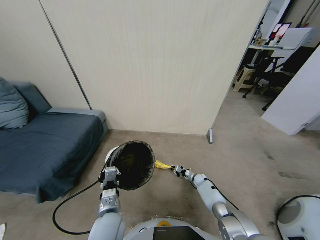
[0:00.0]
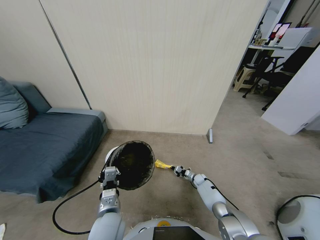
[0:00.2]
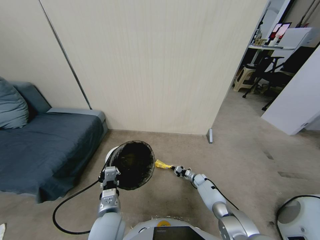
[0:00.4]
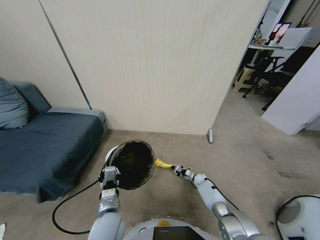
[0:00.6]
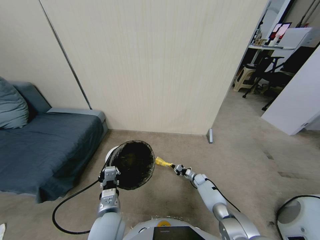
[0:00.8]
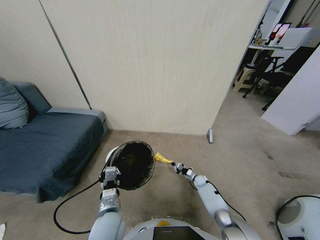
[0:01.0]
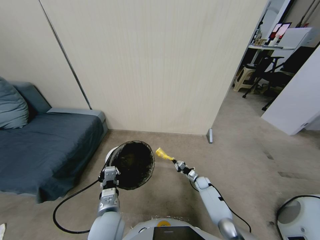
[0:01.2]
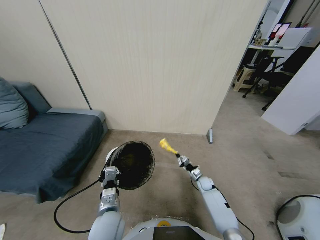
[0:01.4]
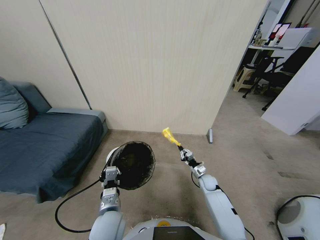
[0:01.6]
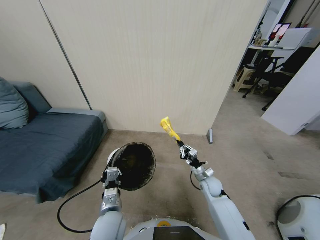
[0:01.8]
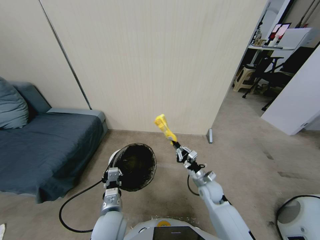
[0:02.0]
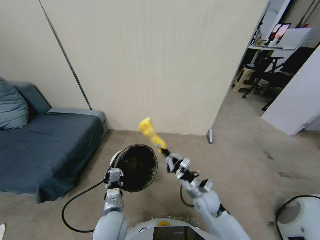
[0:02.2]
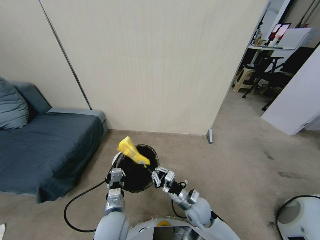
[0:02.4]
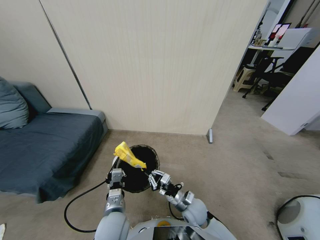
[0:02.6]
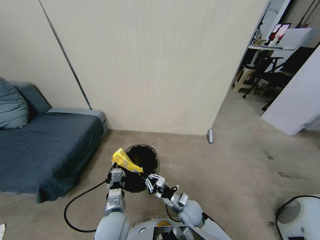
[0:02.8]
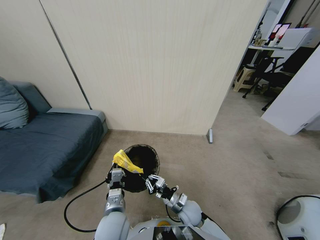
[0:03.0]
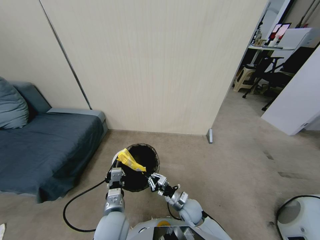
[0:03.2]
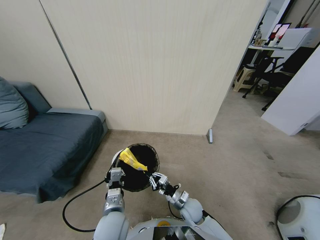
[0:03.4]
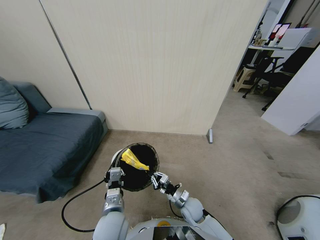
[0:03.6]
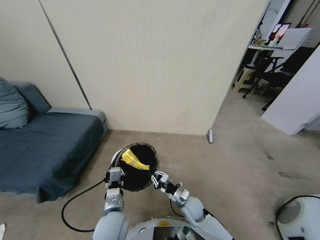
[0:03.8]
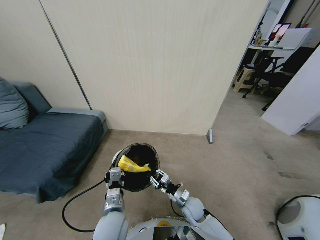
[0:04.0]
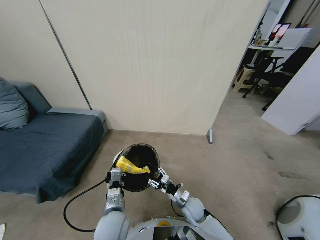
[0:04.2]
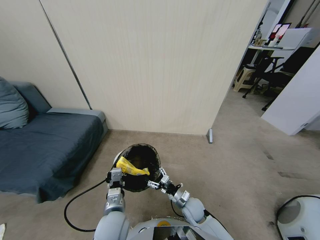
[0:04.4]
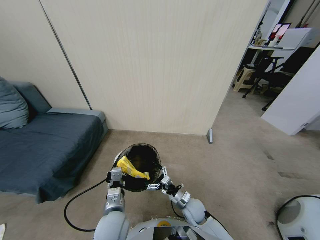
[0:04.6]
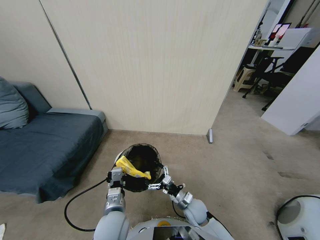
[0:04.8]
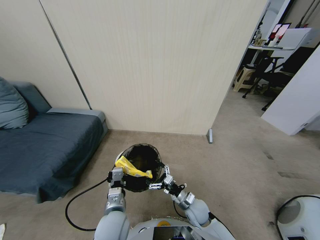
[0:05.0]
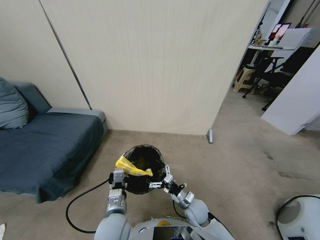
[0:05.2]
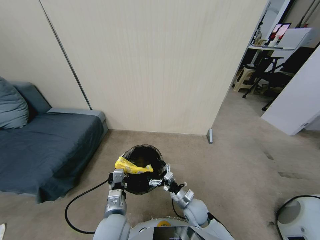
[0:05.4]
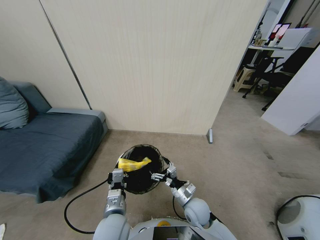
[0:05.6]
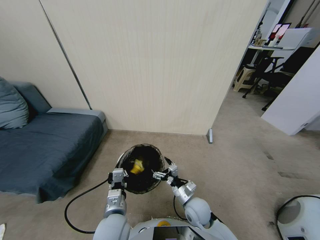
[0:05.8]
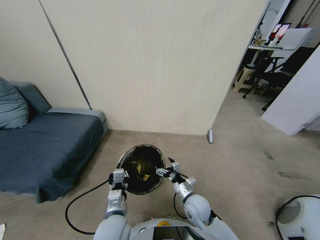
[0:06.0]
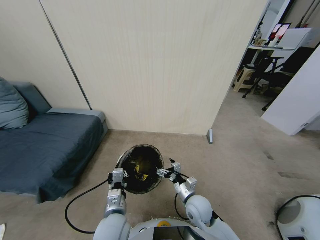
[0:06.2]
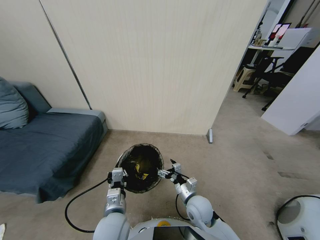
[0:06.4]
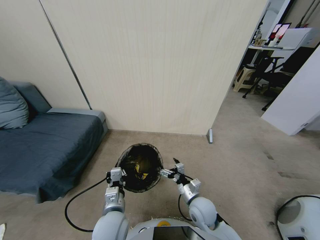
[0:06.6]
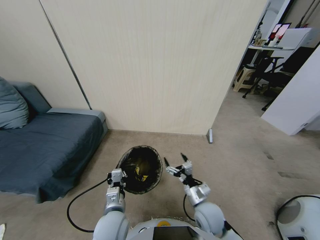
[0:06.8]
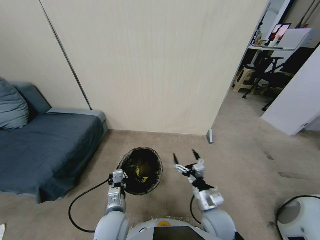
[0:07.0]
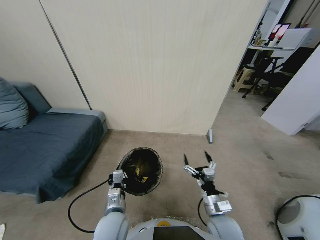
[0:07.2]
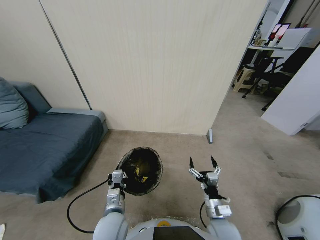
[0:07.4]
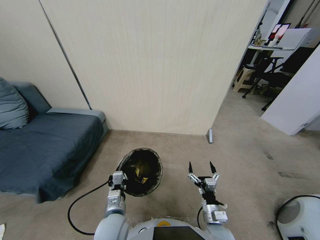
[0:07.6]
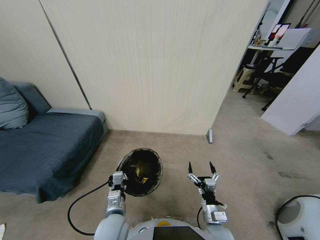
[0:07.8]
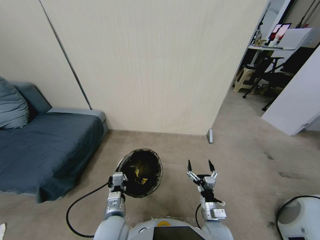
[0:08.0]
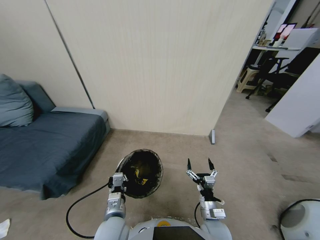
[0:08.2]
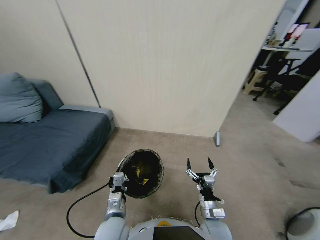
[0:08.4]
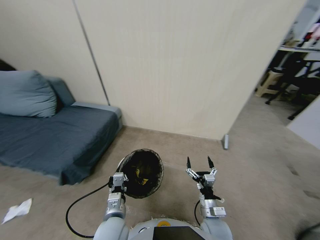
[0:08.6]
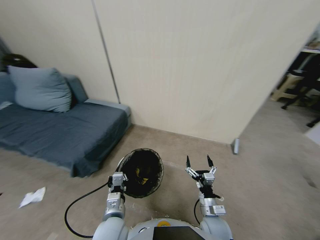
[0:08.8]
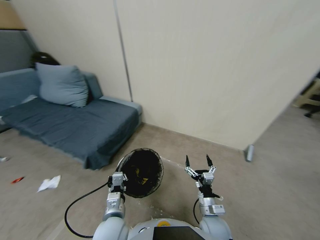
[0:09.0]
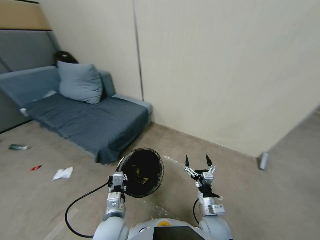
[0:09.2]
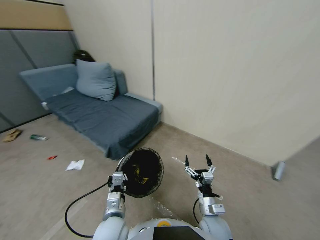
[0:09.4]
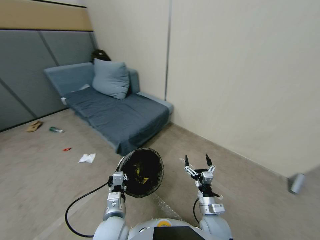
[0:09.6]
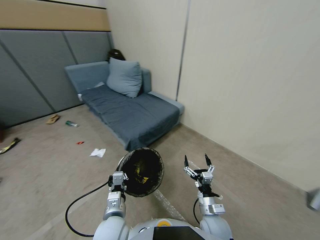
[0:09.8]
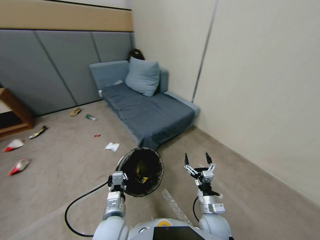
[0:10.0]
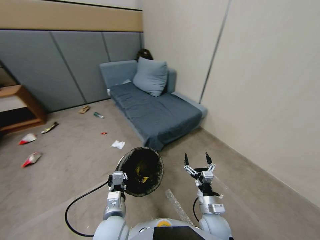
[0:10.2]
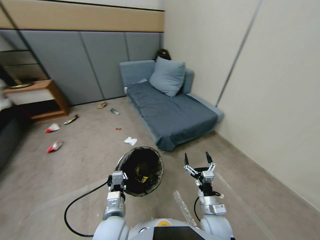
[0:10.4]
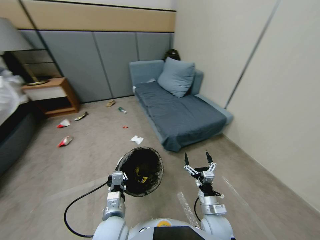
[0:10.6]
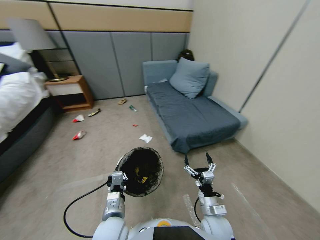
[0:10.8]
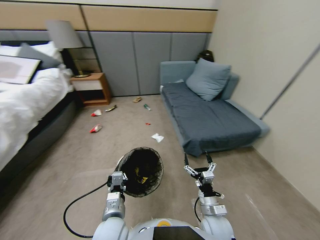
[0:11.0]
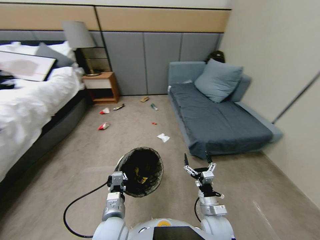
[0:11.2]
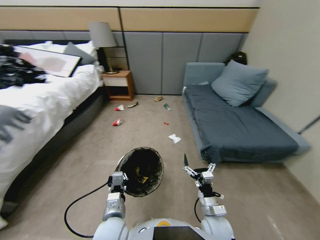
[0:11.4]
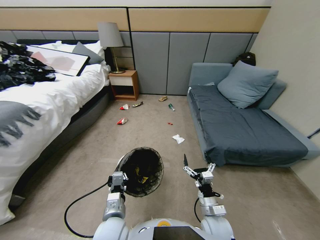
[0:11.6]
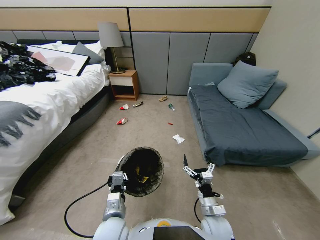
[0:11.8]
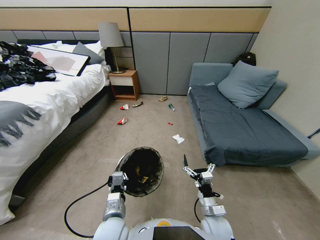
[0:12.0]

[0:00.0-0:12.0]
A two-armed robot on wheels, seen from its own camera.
Task of the whole recording: Pick up the trash bin, then pick up the garbage from the floor and place it into the trash bin.
0:00.0 to 0:01.6: The right gripper moves upward and backward, about 20 cm.
0:01.6 to 0:03.0: The right gripper heads to the left and backward, covering approximately 20 cm.
0:03.0 to 0:04.4: The right gripper opens up.
0:04.4 to 0:06.0: The right gripper heads upward, covering about 10 cm.
0:06.0 to 0:07.6: The right gripper heads backward and to the right, covering approximately 10 cm.

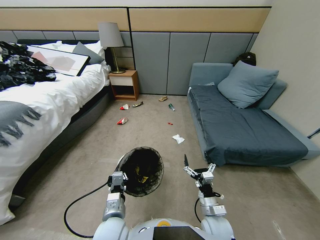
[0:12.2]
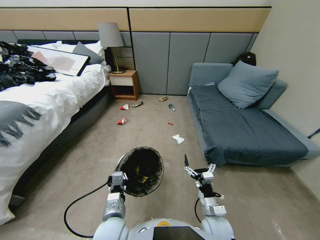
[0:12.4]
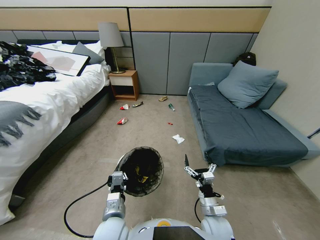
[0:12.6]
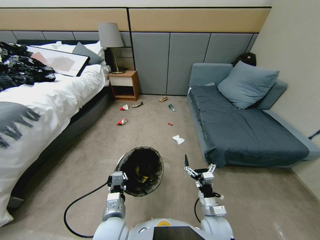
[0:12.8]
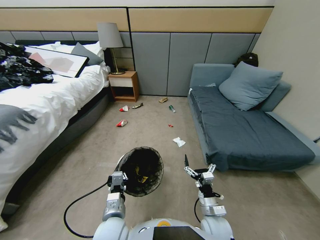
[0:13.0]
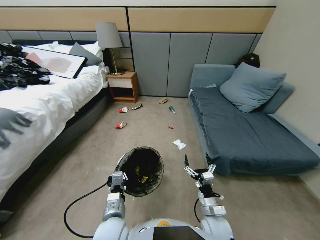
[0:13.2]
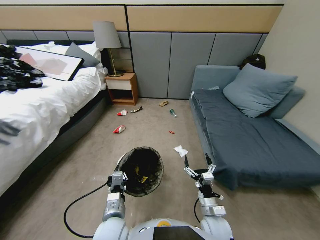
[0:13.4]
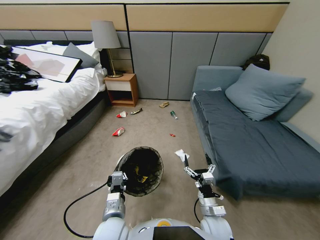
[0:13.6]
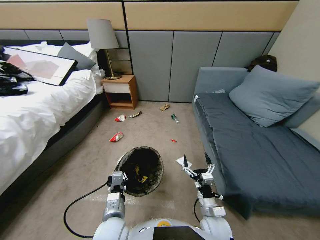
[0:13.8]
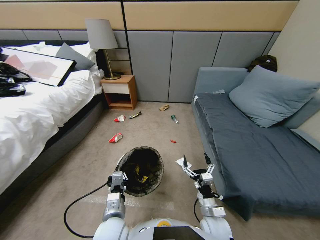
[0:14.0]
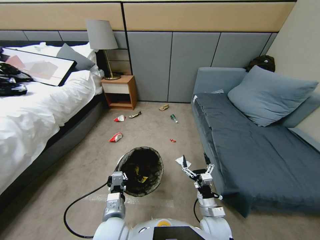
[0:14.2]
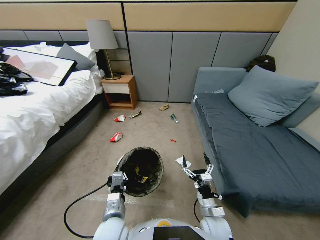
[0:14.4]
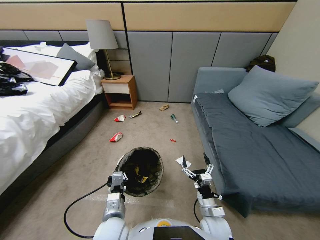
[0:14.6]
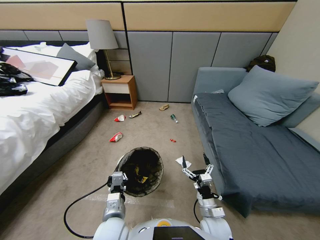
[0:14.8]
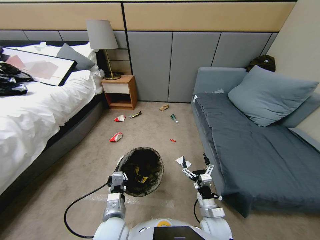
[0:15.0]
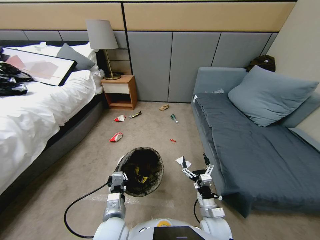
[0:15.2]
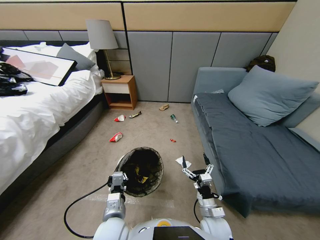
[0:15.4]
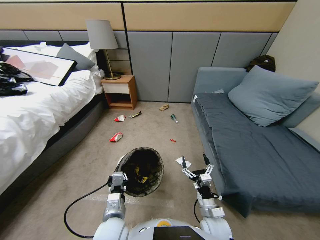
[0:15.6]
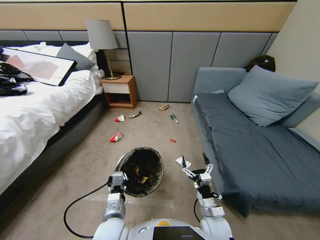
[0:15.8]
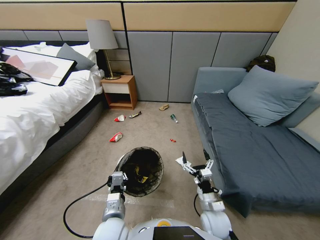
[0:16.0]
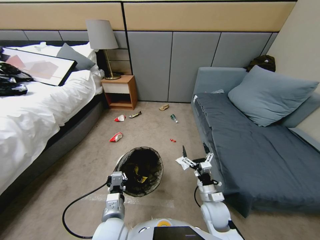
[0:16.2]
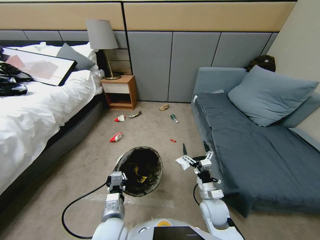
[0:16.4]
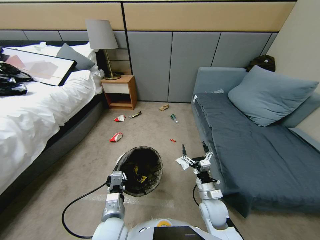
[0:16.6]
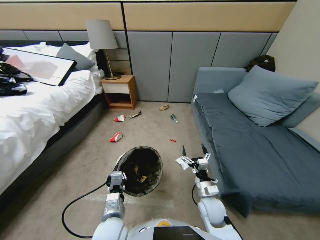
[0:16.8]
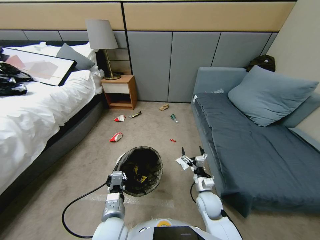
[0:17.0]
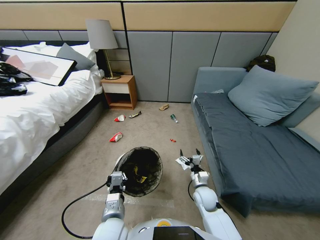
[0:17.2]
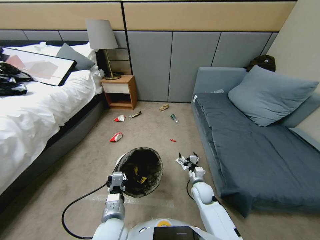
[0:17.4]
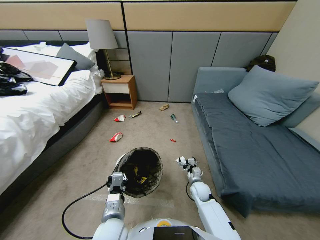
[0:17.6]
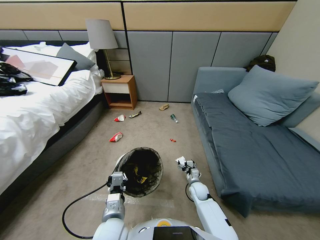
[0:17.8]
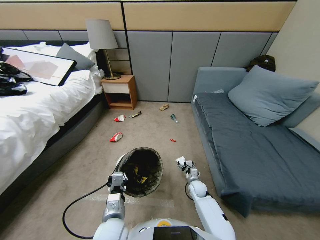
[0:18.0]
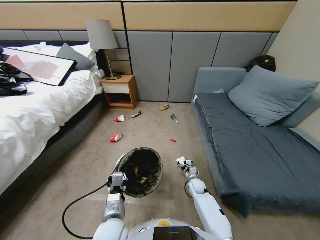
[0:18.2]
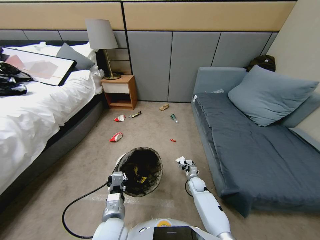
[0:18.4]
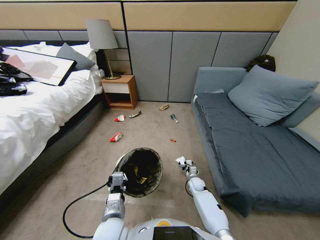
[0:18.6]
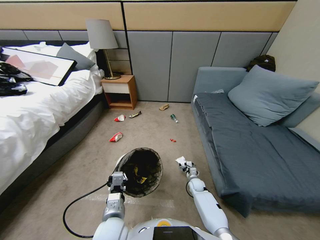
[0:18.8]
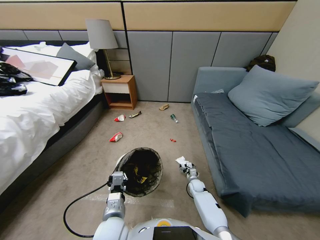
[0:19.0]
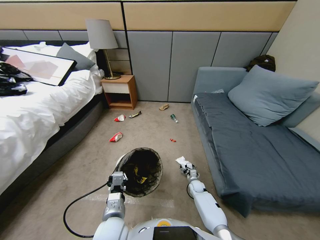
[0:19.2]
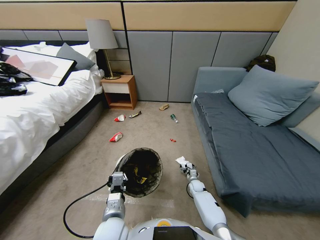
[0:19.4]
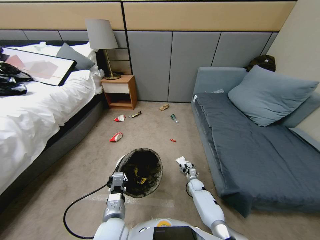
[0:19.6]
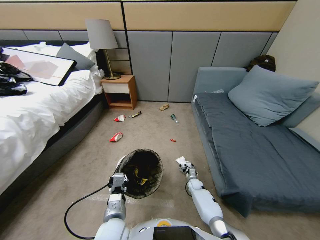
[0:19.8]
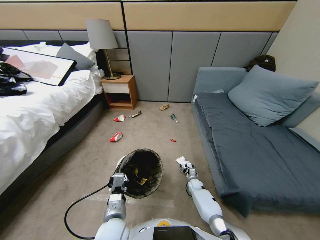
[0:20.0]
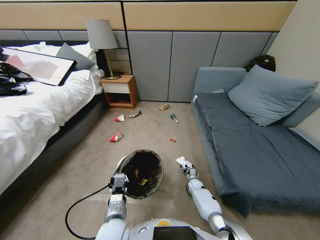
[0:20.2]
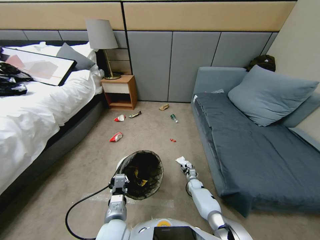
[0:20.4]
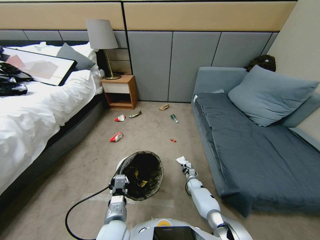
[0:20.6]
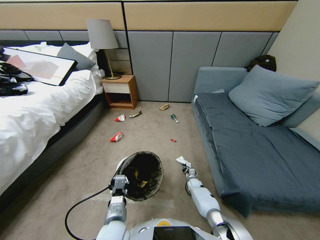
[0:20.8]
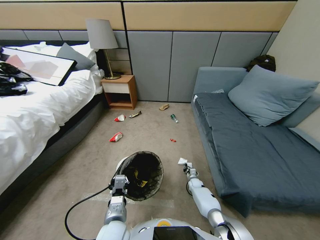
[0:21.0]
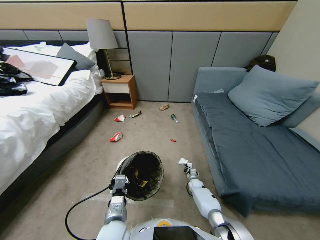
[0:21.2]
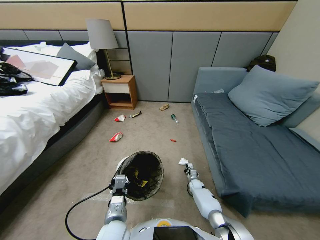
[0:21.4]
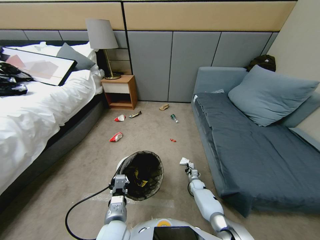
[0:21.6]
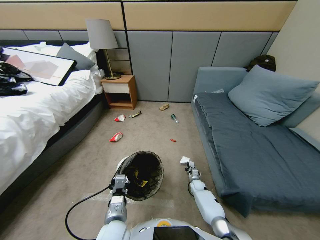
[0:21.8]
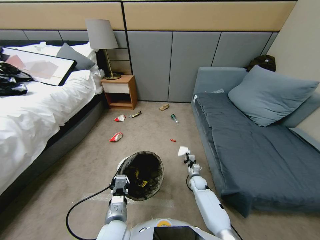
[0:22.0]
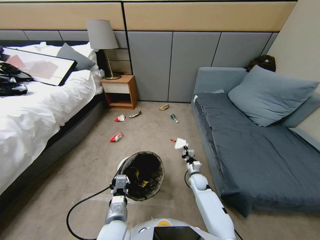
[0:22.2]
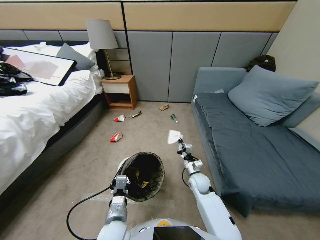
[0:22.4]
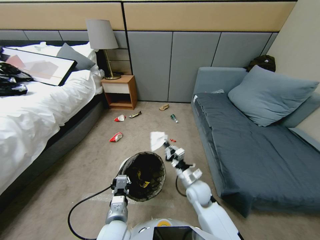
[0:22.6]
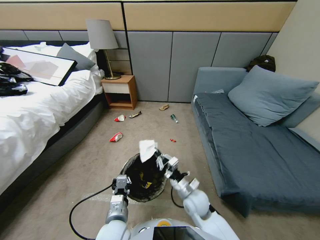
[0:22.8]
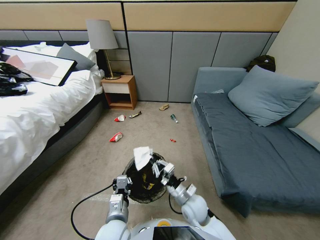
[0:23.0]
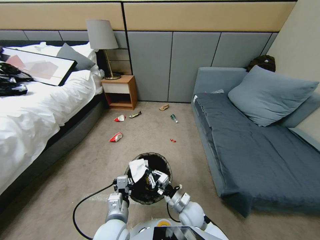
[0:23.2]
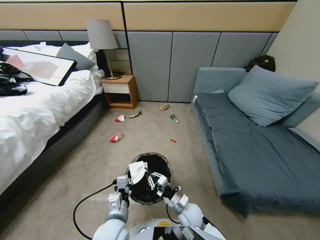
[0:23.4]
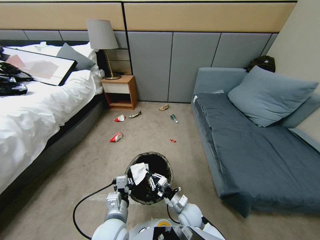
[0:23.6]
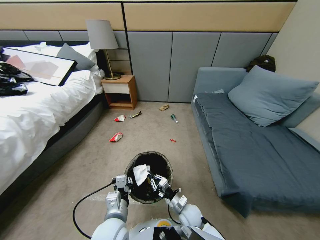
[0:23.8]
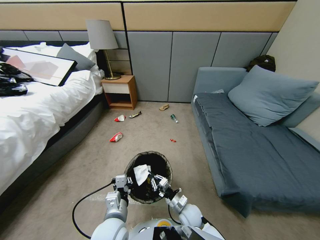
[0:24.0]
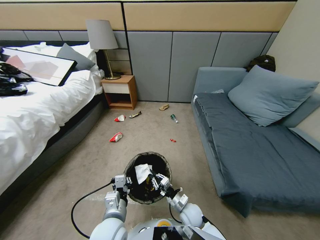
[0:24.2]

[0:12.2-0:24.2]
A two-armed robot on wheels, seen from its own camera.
Task of the whole recording: Pick up the trash bin, then pick up the garbage from the floor and place it into the trash bin.
0:13.8 to 0:15.2: Both grippers stay put.
0:15.2 to 0:16.6: The right gripper goes some 5 cm forward.
0:16.6 to 0:18.2: The right gripper is displaced downward and forward by some 20 cm.
0:18.2 to 0:19.8: The right gripper heads downward, covering some 10 cm.
0:19.8 to 0:21.2: The right gripper closes its fingers.
0:21.2 to 0:22.6: The right gripper moves upward and backward, roughly 30 cm.
0:22.6 to 0:24.2: The right gripper travels downward by some 10 cm.
